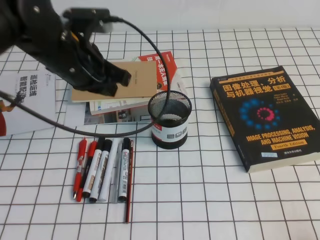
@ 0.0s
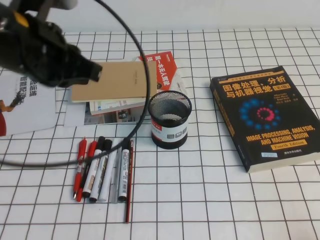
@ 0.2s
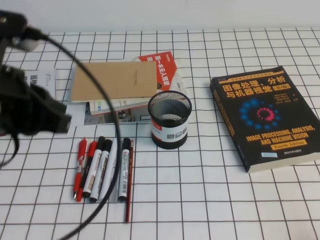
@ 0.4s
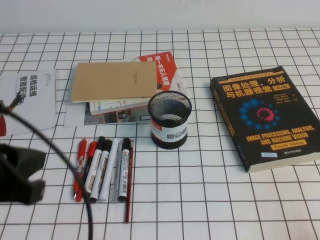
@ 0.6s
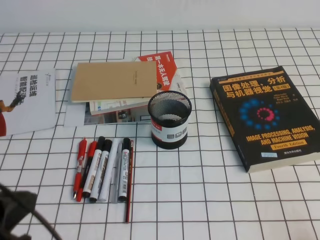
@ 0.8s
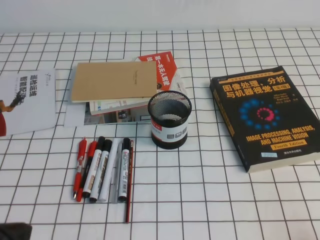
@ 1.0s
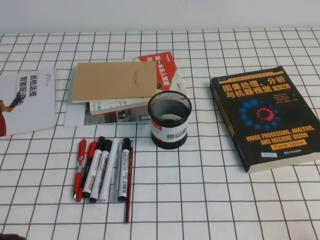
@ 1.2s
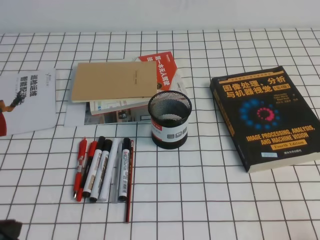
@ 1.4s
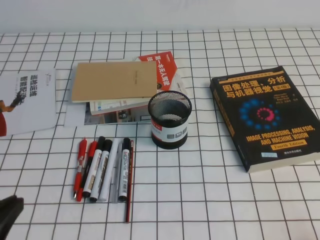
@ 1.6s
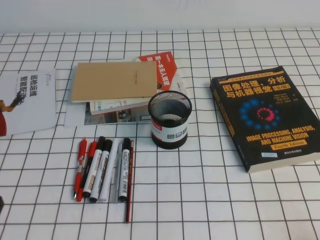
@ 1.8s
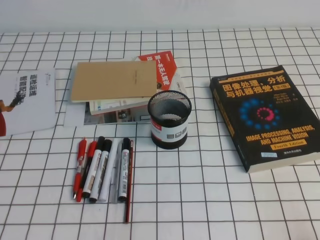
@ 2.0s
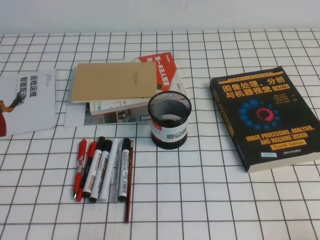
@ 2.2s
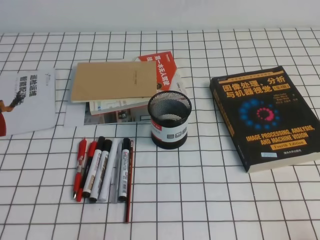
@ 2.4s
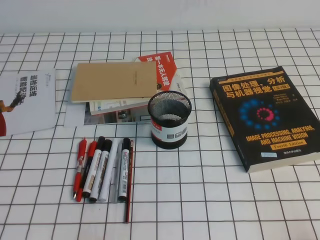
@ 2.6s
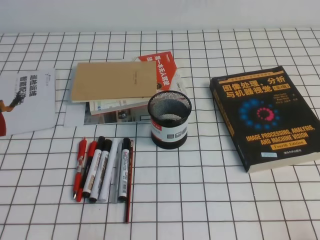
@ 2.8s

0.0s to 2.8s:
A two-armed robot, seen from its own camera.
Step, 0.0s to 2.8s: Pick up the pen from the pen holder.
0.0s to 1.4s: The left gripper is displaced backward and to the left by some 30 cm.

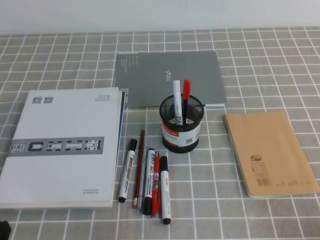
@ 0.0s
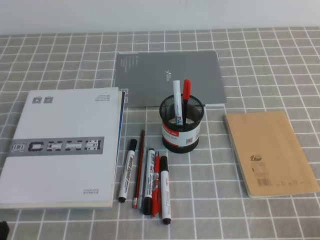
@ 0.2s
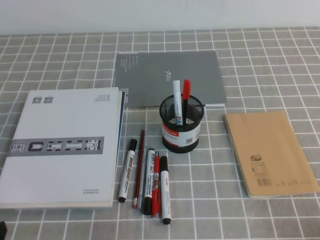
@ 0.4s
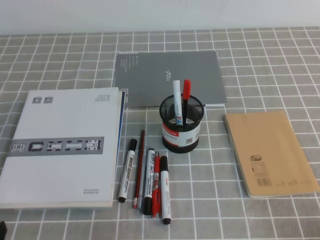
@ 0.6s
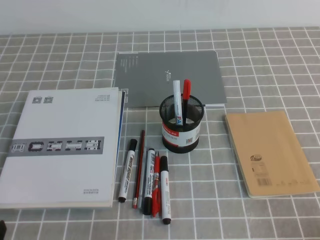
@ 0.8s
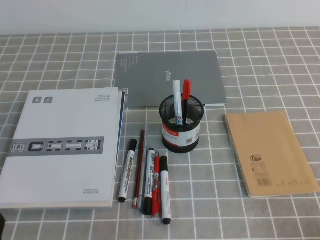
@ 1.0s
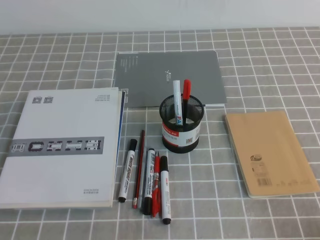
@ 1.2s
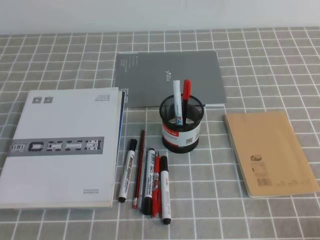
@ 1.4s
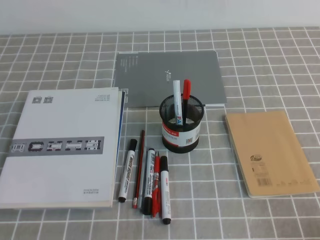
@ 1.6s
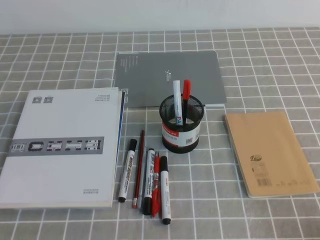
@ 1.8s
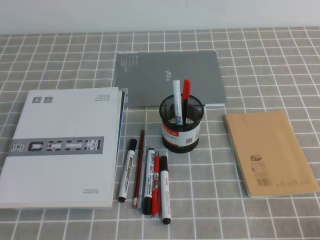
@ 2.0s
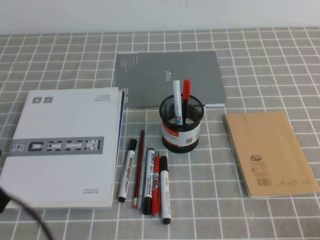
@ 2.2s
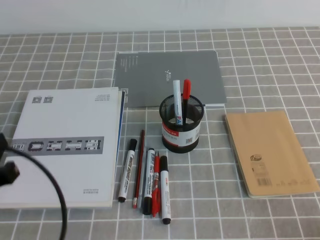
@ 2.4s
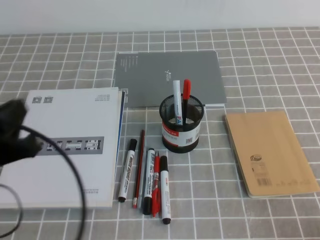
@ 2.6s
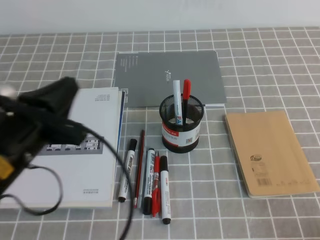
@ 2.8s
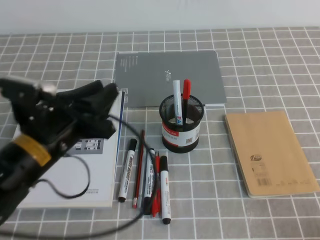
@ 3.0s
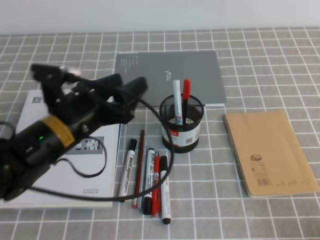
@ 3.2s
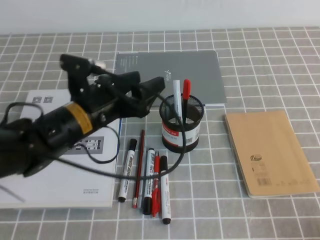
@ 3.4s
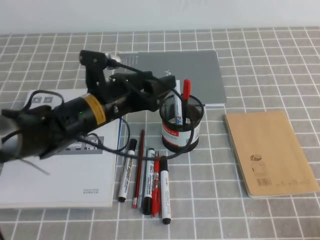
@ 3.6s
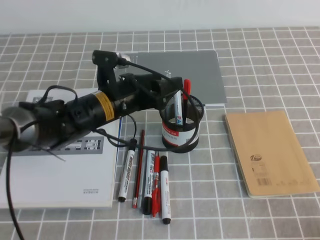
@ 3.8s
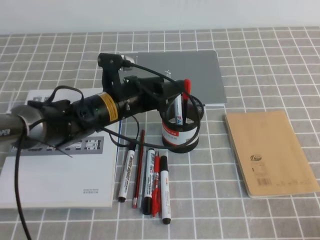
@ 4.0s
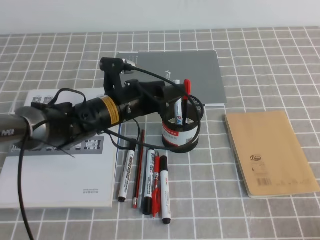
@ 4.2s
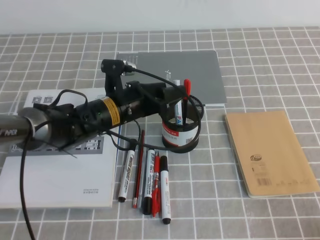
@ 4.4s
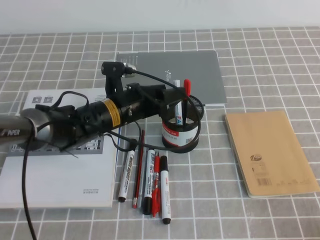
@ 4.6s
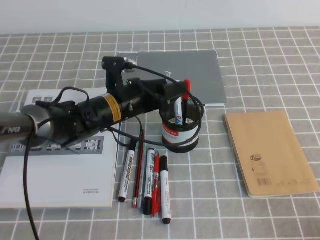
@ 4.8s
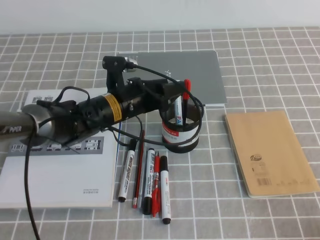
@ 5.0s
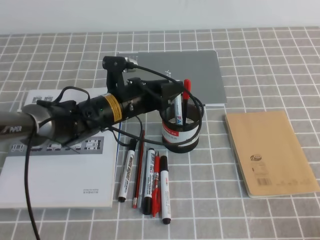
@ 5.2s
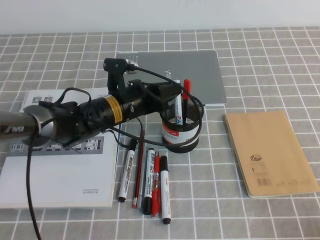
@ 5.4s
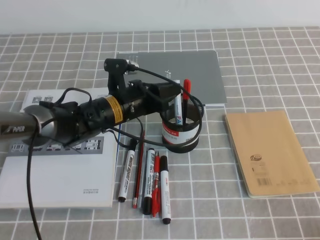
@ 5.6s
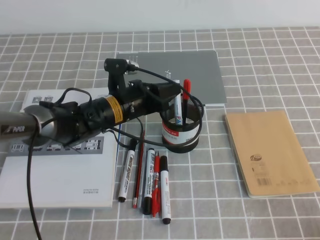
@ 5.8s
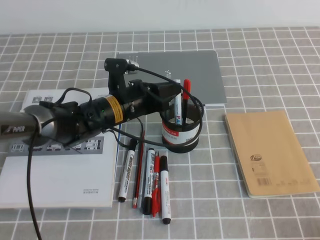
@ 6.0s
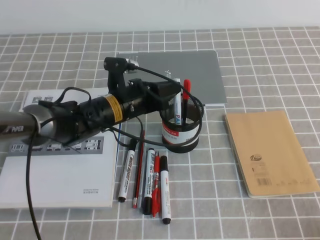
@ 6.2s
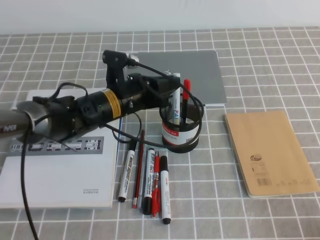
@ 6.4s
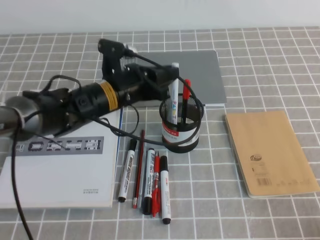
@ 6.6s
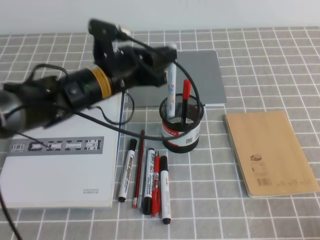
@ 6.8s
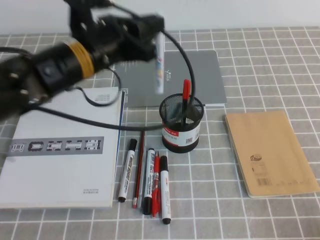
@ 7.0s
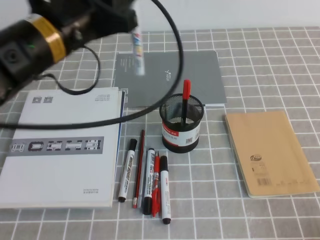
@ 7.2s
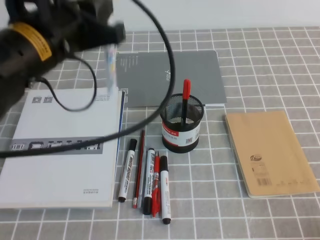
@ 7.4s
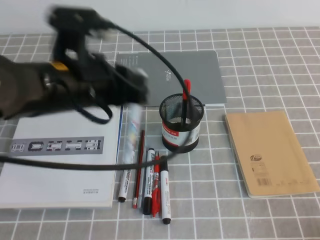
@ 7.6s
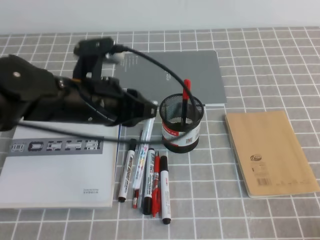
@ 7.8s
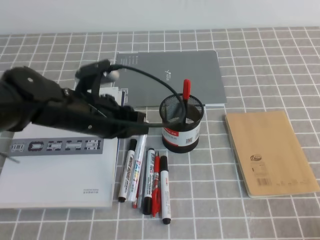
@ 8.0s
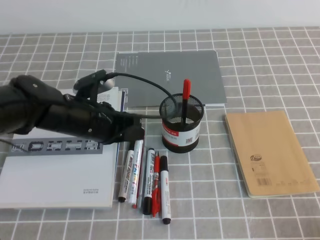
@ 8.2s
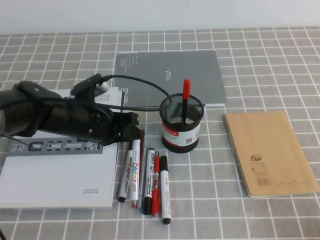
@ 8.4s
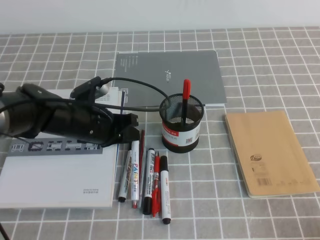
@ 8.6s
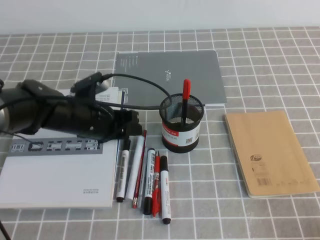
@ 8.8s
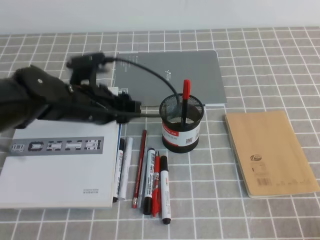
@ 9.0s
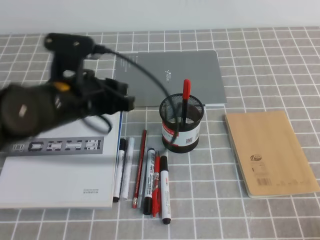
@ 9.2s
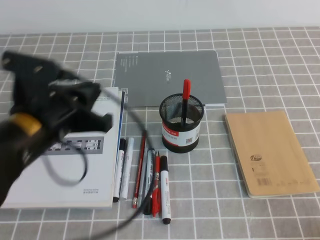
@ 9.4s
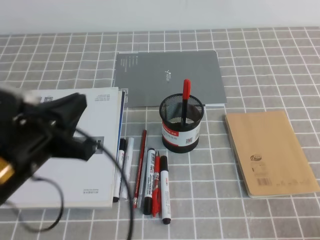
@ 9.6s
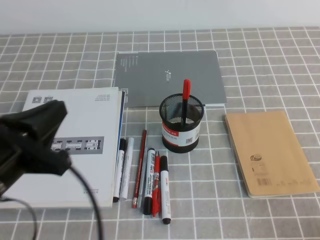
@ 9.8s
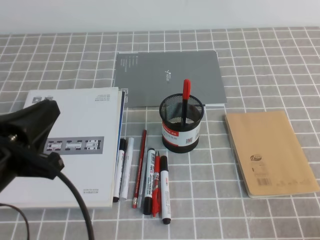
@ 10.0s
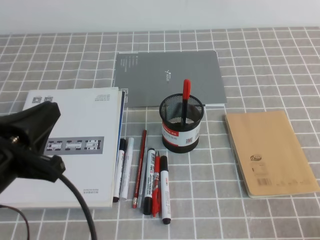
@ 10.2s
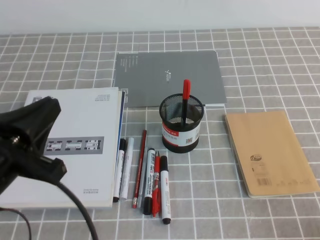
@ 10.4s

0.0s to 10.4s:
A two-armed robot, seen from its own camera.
1.4s to 3.0s: The left gripper is displaced forward, to the right and upward by approximately 20 cm, and opens up.
3.0s to 4.4s: The left gripper moves forward, to the right and downward, some 20 cm, and opens.
4.4s to 6.0s: The left gripper closes its fingers.
6.0s to 7.4s: The left gripper heads upward and backward, covering roughly 20 cm.
7.4s to 9.0s: The left gripper travels downward by approximately 15 cm, and opens its fingers.
9.0s to 10.4s: The left gripper shifts some 20 cm backward and to the left, and closes.

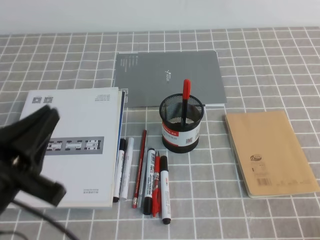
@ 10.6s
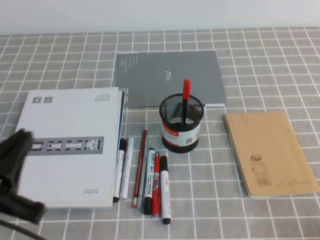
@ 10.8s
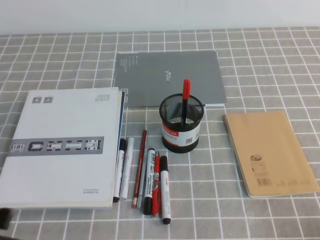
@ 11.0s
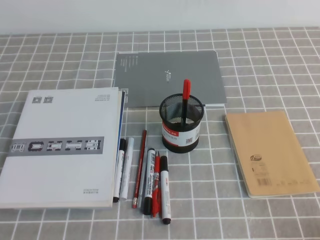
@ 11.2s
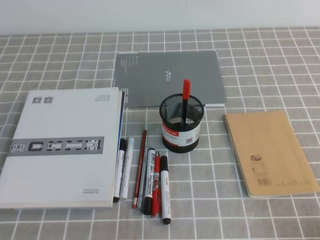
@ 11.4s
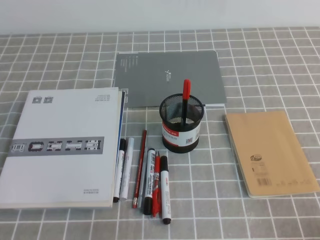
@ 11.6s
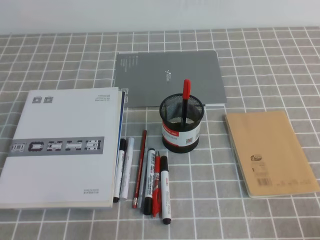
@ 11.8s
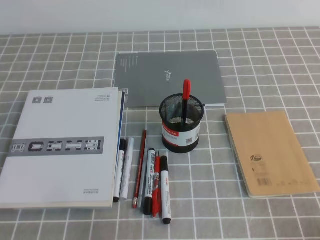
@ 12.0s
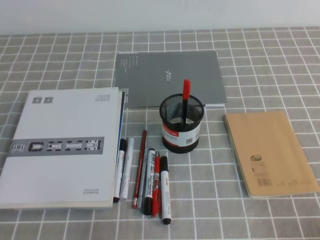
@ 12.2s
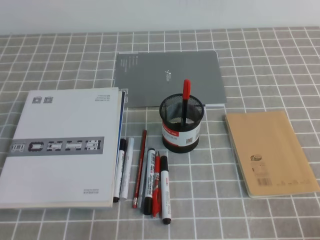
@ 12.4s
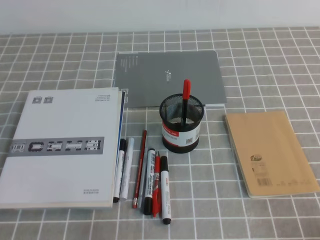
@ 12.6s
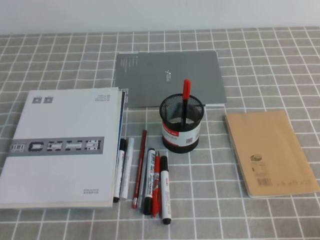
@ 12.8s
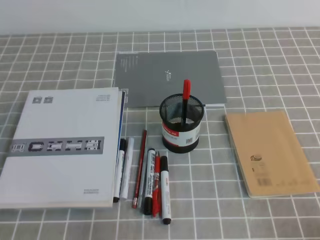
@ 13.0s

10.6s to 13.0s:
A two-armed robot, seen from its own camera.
Step, 10.6s to 13.0s: Pick up the pen from the pen holder.
10.6s to 11.8s: The left gripper moves downward, to the left and backward, approximately 15 cm.
